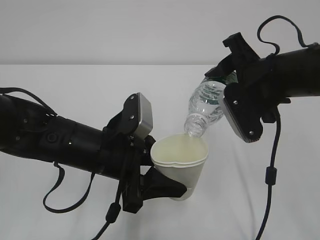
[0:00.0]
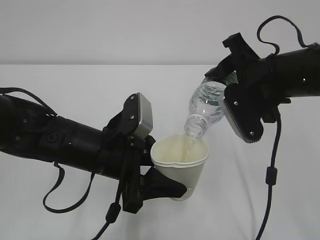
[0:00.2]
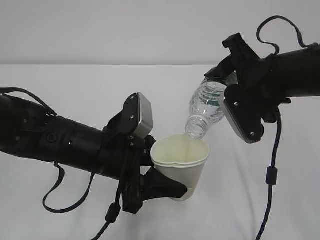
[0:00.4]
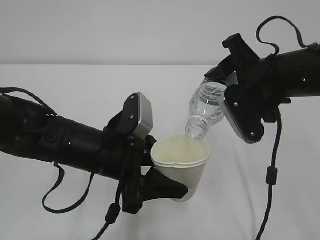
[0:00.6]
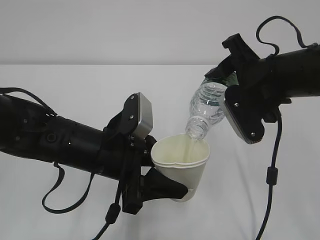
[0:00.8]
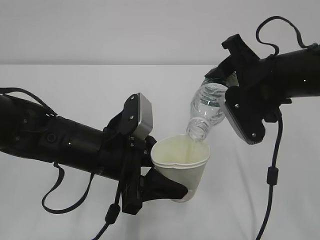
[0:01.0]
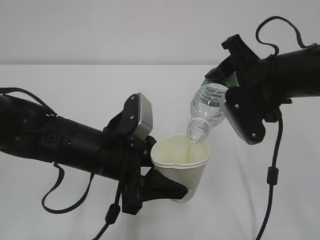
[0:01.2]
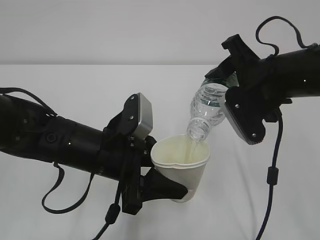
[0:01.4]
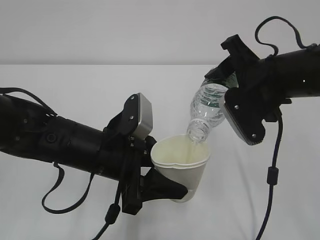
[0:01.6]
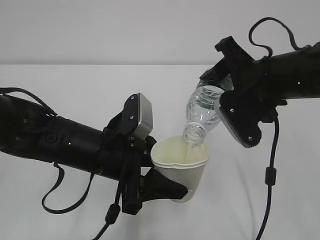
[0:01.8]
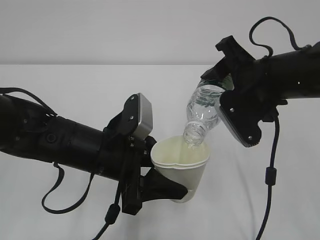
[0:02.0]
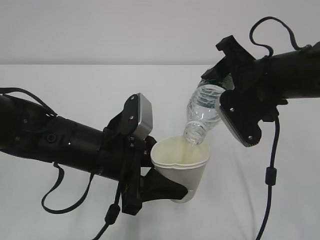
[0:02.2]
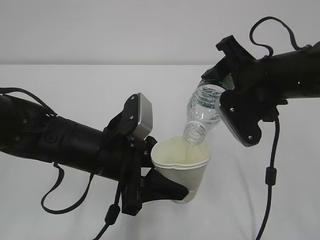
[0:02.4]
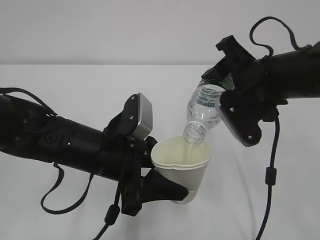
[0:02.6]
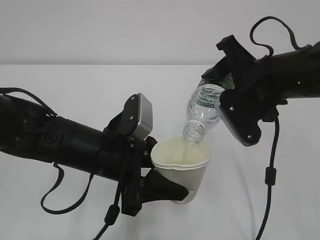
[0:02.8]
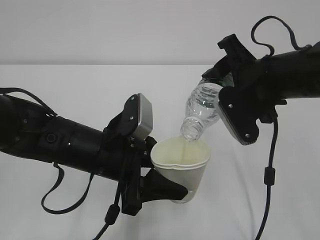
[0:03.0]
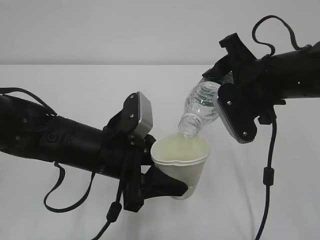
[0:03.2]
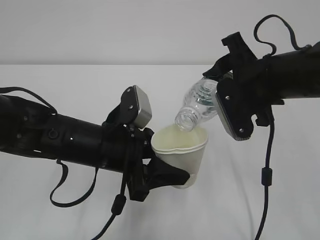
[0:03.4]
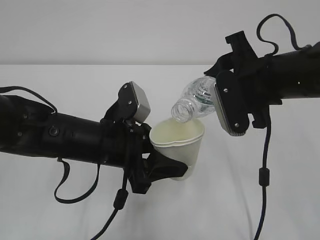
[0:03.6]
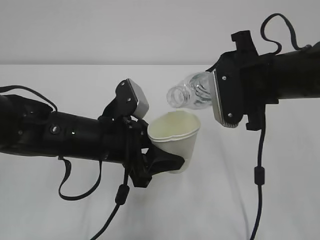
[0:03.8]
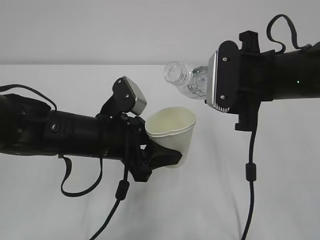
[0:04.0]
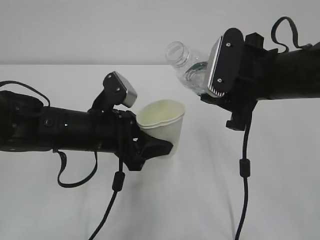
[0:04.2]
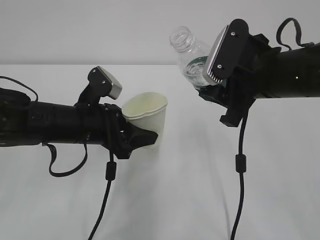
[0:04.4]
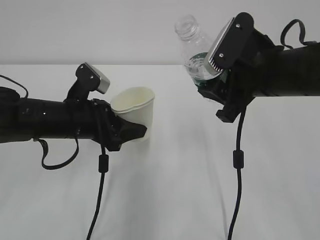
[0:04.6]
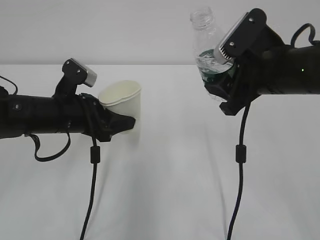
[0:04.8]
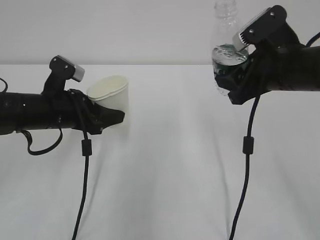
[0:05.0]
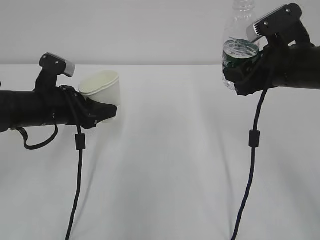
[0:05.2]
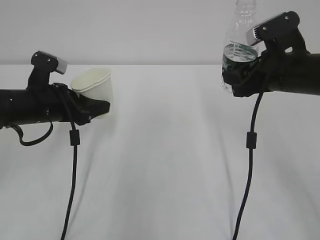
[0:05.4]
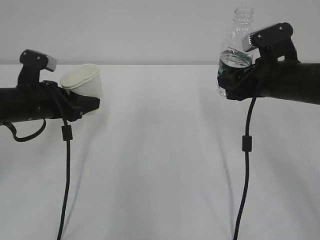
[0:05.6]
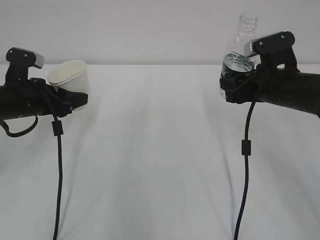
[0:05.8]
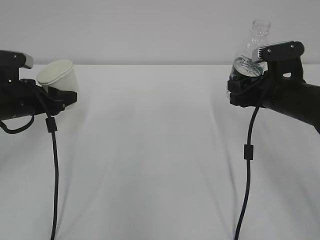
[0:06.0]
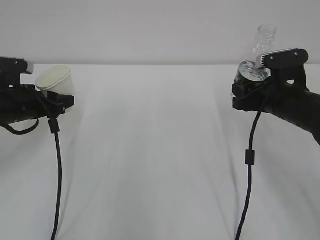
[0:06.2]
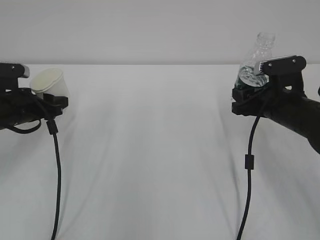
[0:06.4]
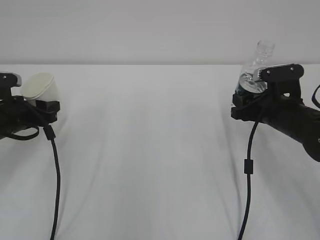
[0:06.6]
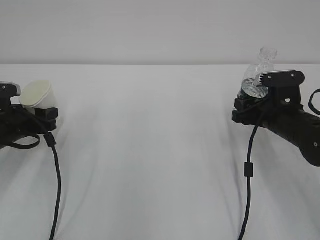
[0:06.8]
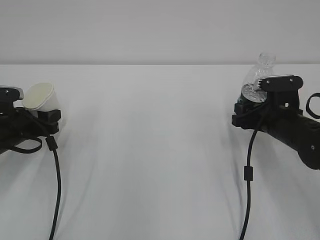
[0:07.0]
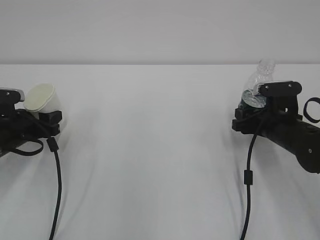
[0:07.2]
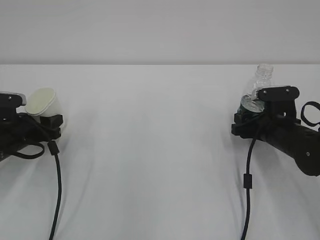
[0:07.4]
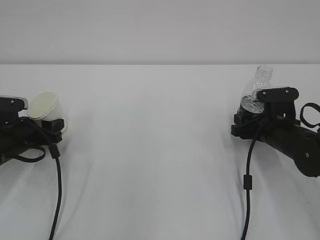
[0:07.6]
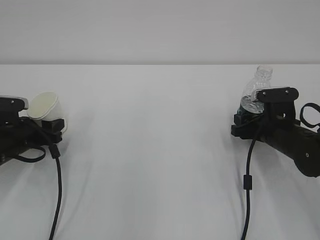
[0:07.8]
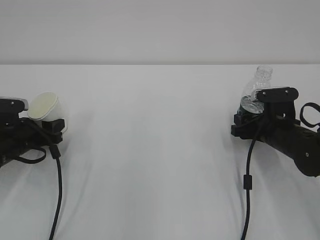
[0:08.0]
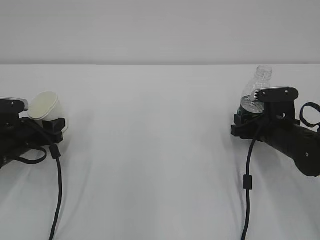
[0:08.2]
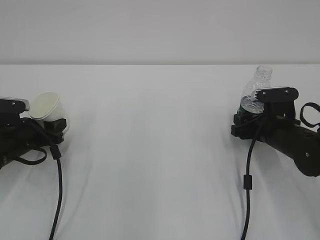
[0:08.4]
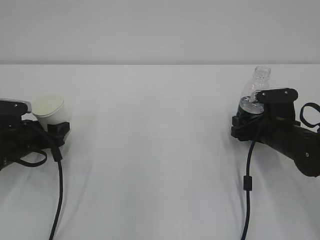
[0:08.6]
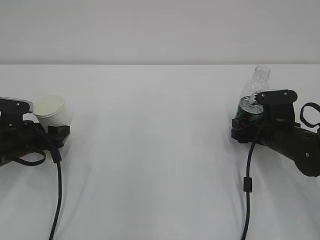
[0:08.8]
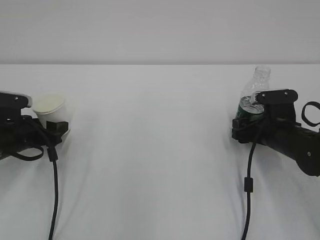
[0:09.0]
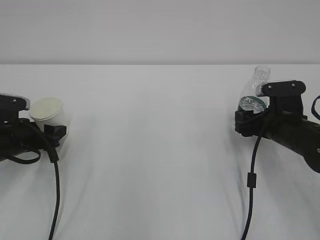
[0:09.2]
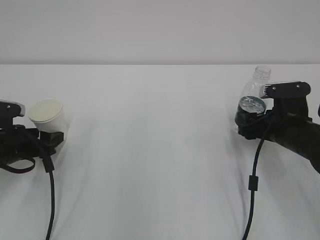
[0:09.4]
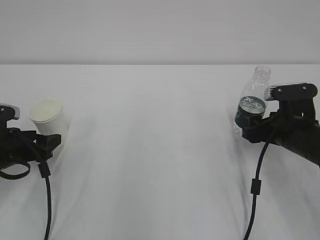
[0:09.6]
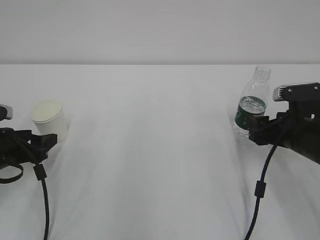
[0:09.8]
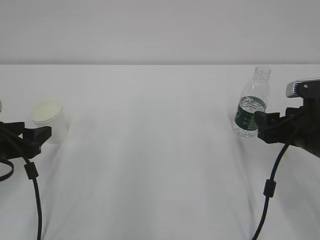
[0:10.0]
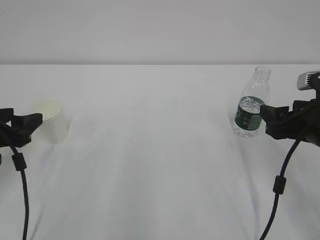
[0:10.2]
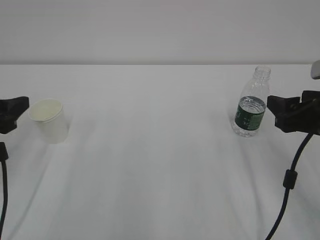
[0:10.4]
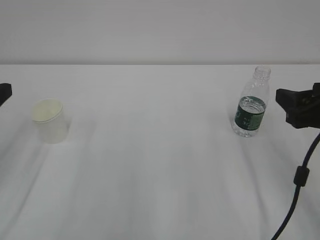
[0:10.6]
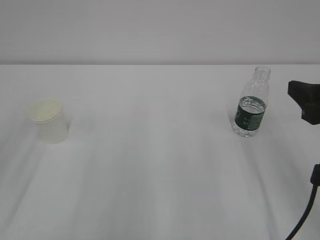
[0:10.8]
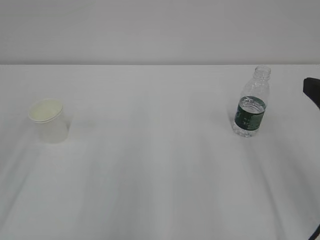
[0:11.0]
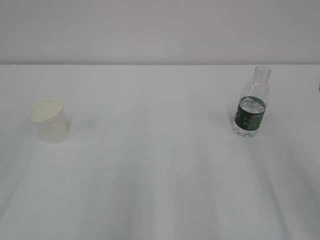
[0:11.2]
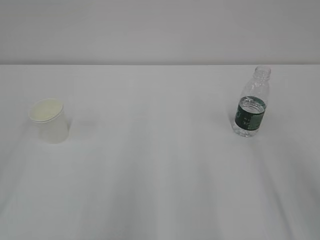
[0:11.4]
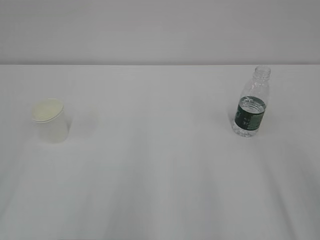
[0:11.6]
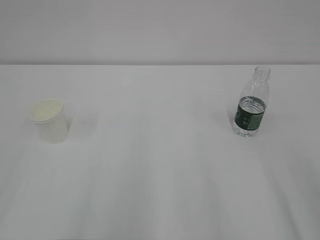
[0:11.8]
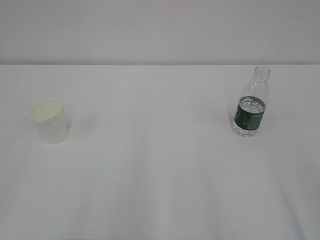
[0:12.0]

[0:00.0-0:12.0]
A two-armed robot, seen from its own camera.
0:00.0 to 0:01.6: Neither gripper changes place.
0:01.6 to 0:03.0: Both grippers stay about where they are.
0:03.0 to 0:04.4: The left gripper travels forward by some 5 cm.
0:04.4 to 0:06.0: The left gripper heads to the left and forward, covering roughly 15 cm. Meanwhile the right gripper goes about 10 cm downward, to the right and forward.
0:06.0 to 0:07.6: Both grippers move downward, approximately 10 cm.
0:07.6 to 0:09.0: The right gripper opens, while the left gripper opens up.
0:09.0 to 0:10.4: Both grippers move upward and backward, approximately 15 cm.
0:10.4 to 0:12.0: Both grippers move backward and upward, approximately 25 cm.

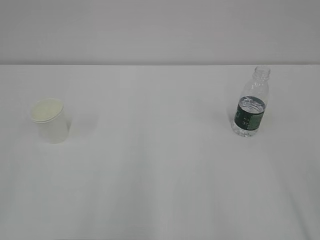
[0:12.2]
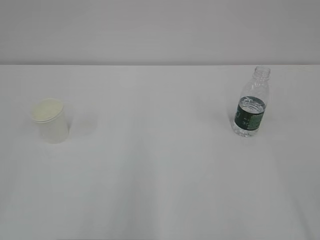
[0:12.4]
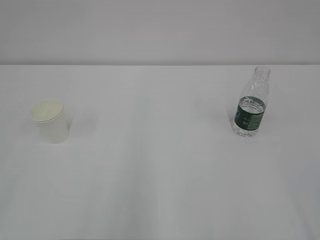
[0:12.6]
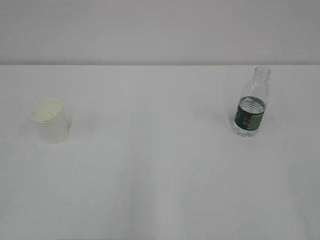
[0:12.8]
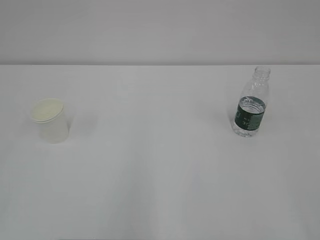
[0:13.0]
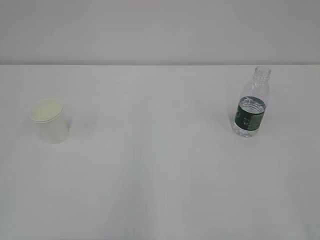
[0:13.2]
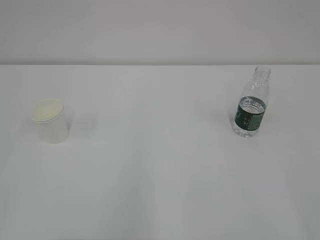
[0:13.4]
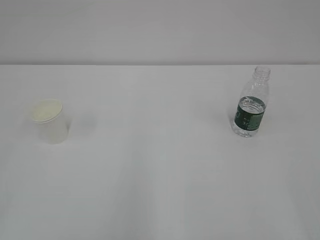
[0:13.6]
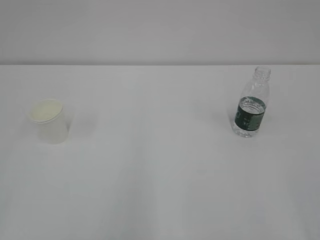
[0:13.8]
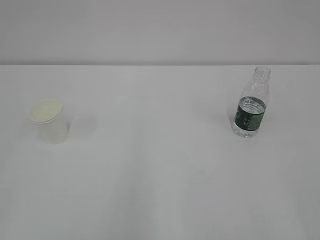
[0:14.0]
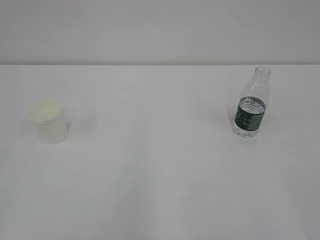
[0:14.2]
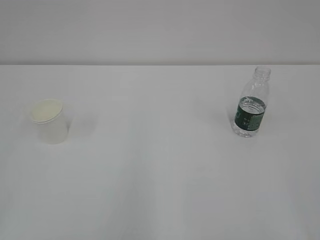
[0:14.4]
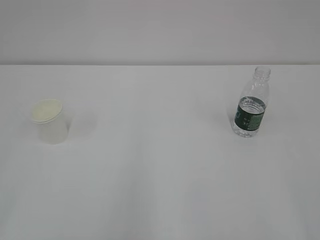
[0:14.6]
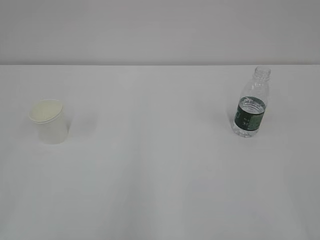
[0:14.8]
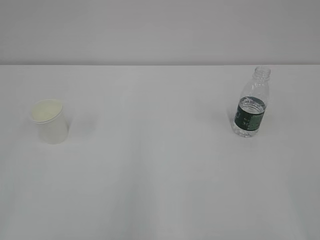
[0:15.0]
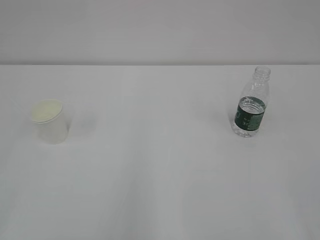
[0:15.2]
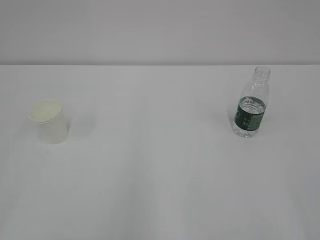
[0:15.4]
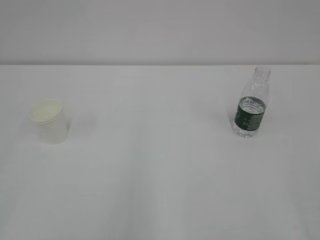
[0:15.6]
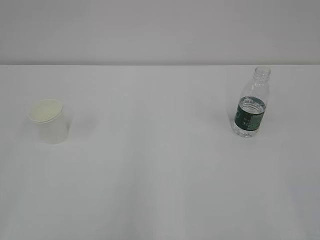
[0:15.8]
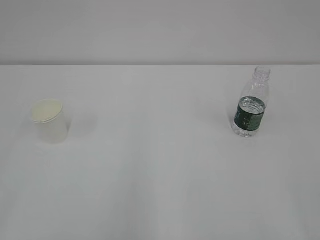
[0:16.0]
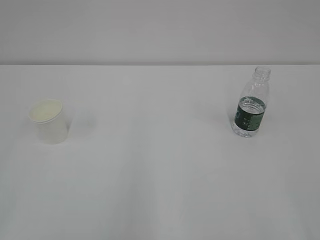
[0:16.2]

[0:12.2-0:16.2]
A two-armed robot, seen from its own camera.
0:14.8 to 0:16.2: Both grippers stay about where they are.

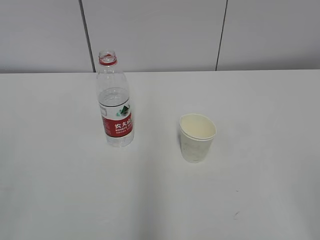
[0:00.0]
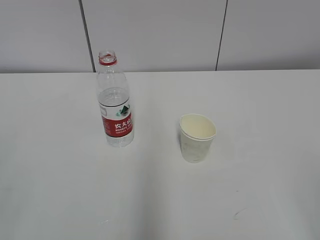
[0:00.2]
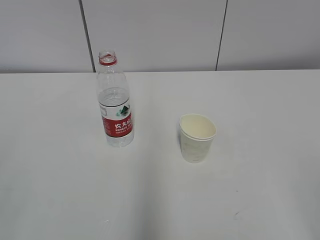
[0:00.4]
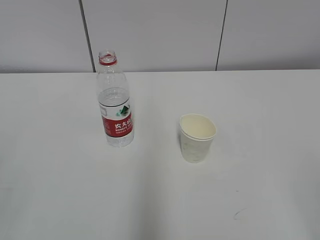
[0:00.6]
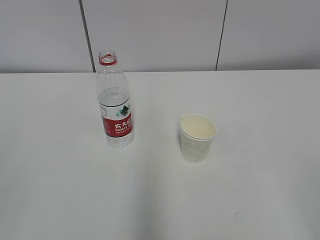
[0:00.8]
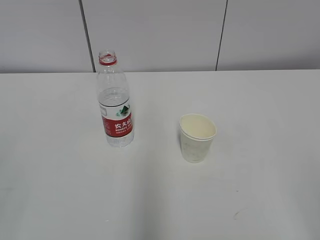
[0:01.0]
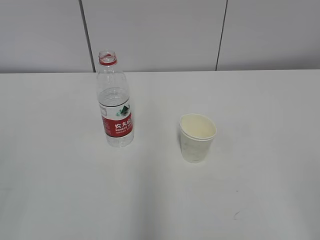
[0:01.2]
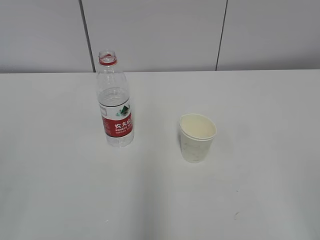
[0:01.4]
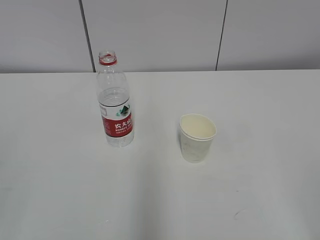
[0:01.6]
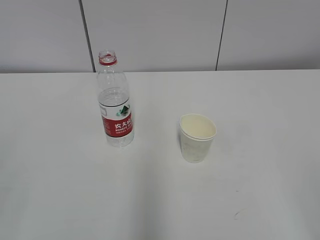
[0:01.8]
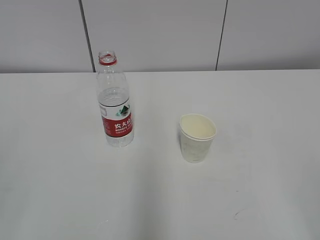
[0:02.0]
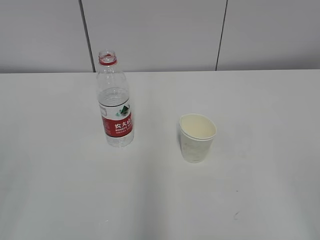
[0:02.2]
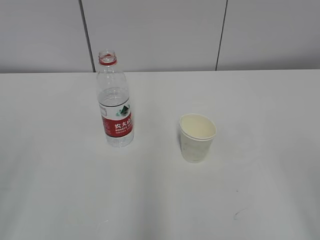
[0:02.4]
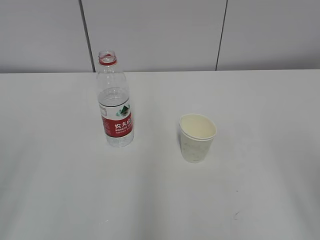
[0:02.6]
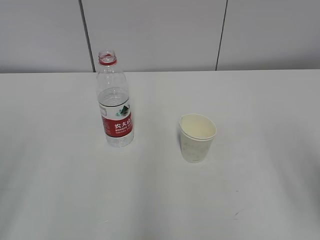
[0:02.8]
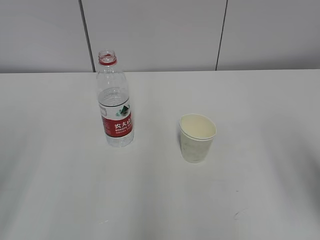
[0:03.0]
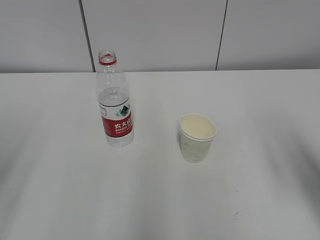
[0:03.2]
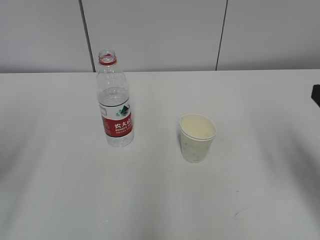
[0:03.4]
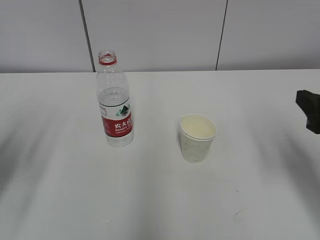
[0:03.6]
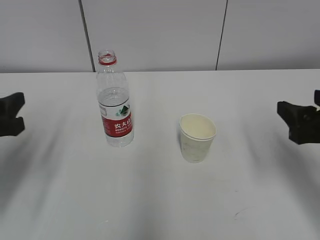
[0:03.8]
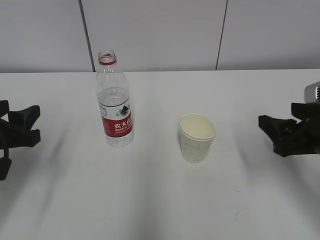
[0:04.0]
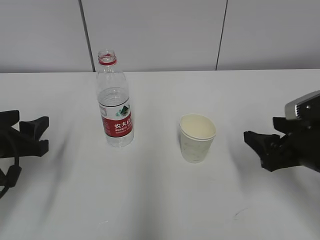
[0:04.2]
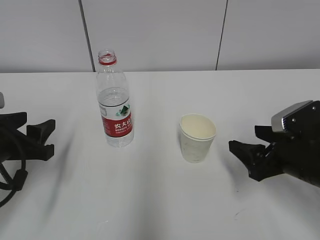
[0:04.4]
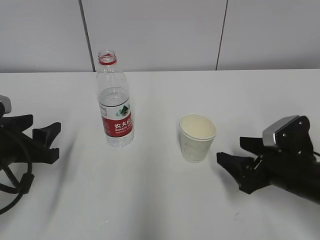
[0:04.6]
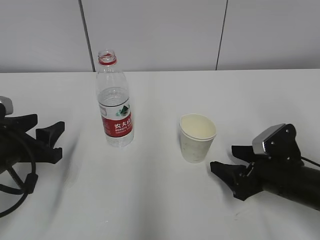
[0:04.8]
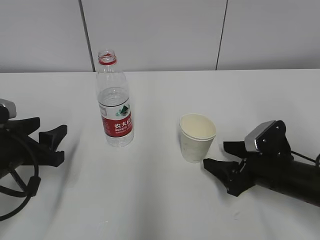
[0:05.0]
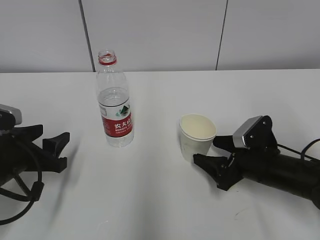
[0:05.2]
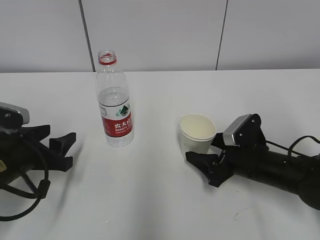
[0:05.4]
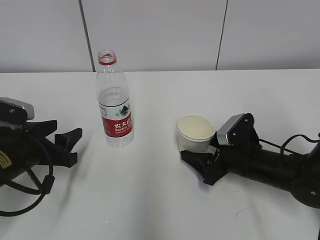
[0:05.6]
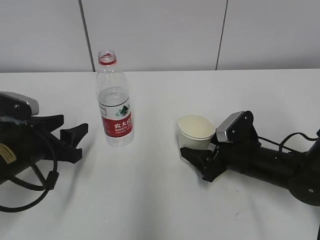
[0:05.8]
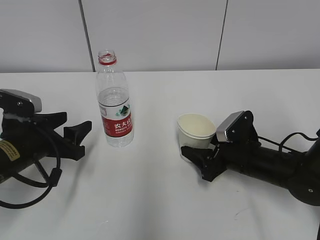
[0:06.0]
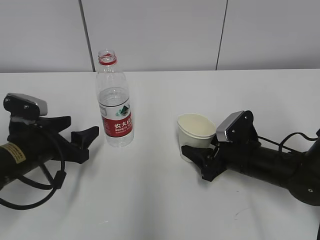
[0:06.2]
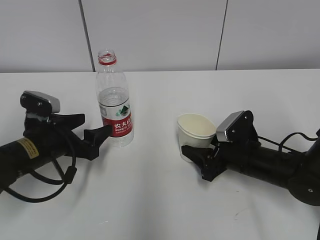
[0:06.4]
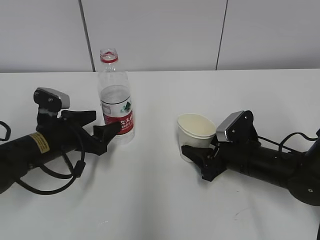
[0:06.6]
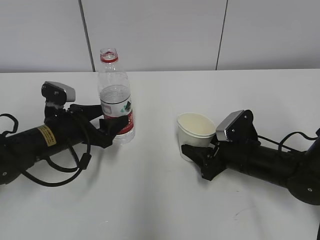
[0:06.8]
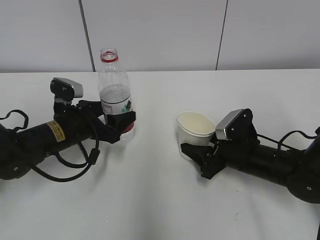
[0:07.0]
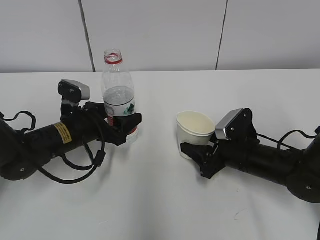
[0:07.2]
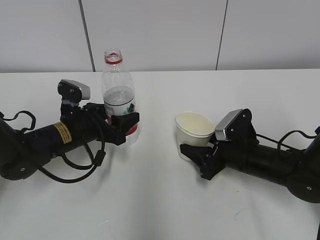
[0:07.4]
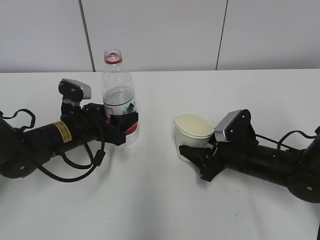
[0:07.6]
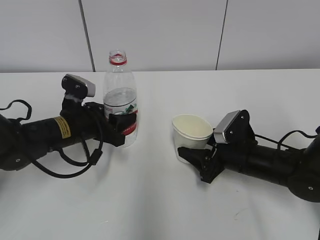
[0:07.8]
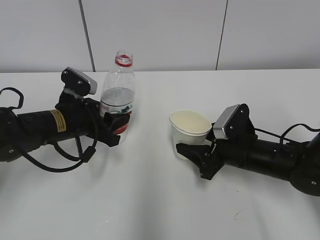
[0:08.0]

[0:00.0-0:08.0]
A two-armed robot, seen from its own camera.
Step, 0:00.0 to 0:06.4: Grab the paper cup with the right hand.
Step, 0:00.0 to 0:06.4: Grab the water bottle with the left hand.
0:01.6 to 0:03.2: The right gripper is displaced forward by roughly 15 cm.
0:03.2 to 0:04.8: The right gripper heads downward and forward, covering some 20 cm. The left gripper heads downward, forward and to the right, covering some 20 cm.
0:04.8 to 0:06.4: The right gripper shifts approximately 5 cm forward, and closes; the left gripper shifts by roughly 5 cm, and opens.
0:06.4 to 0:08.0: The left gripper changes place by approximately 5 cm, and closes.
